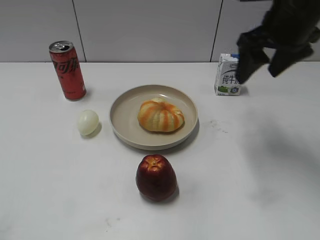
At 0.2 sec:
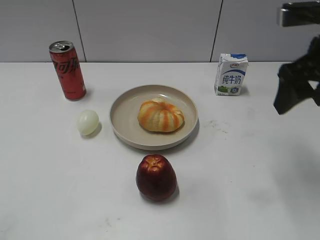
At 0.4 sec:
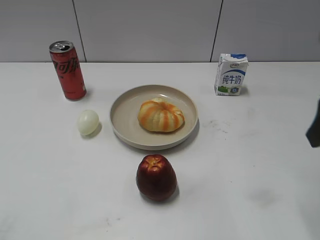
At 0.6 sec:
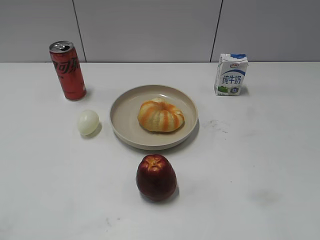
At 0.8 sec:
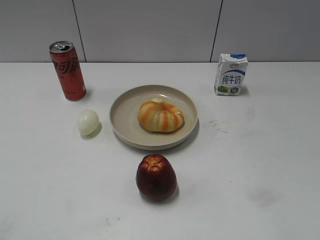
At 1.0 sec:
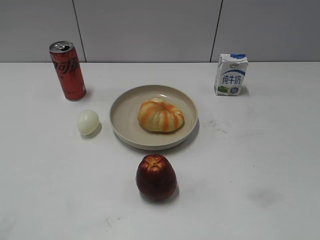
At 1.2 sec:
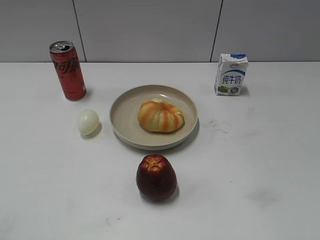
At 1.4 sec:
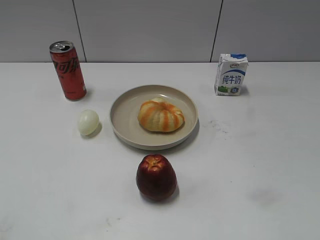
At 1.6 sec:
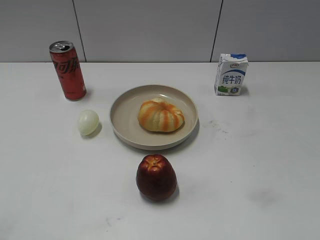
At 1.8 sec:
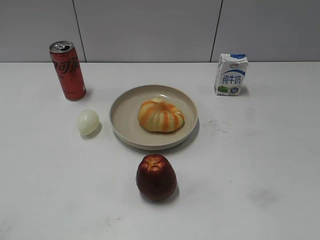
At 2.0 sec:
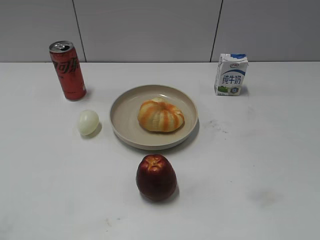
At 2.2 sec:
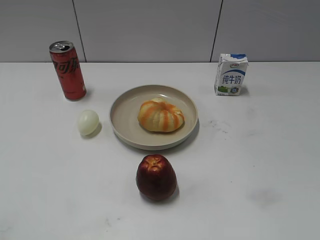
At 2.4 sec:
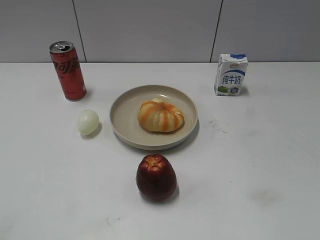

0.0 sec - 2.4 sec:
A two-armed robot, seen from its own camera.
0.0 sec - 1.2 sec: The right gripper travels backward by some 30 cm.

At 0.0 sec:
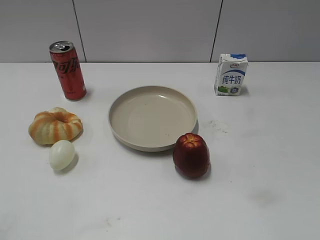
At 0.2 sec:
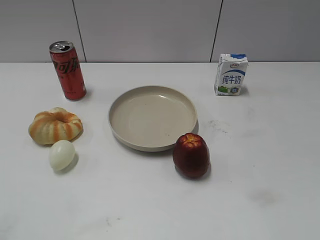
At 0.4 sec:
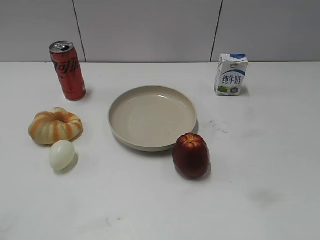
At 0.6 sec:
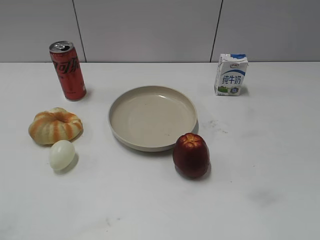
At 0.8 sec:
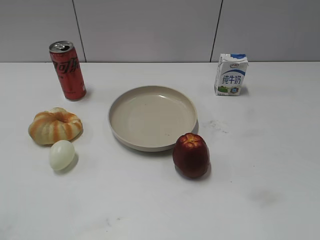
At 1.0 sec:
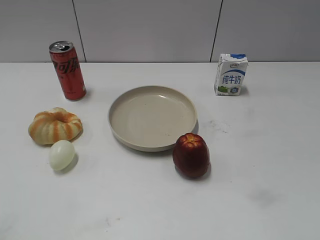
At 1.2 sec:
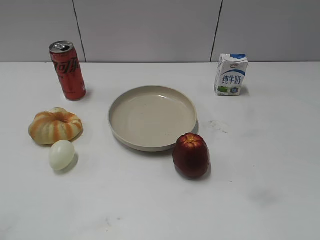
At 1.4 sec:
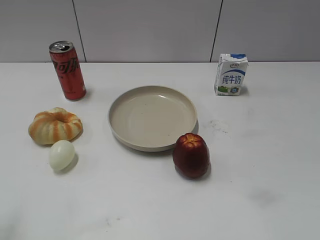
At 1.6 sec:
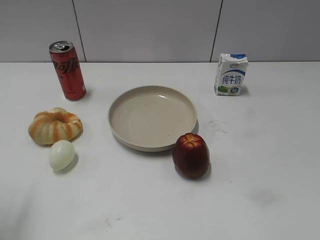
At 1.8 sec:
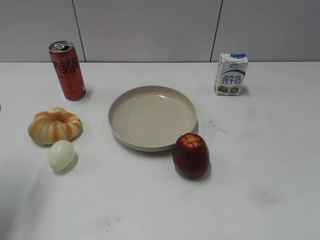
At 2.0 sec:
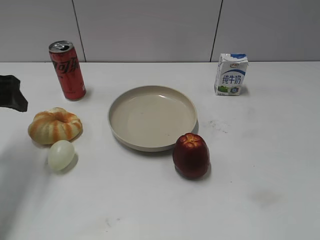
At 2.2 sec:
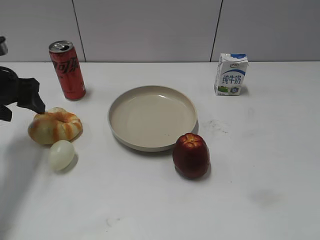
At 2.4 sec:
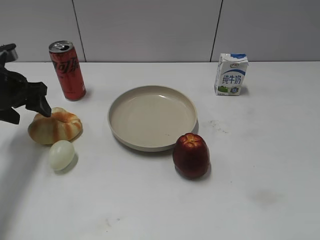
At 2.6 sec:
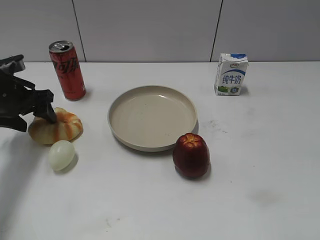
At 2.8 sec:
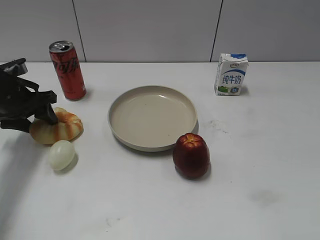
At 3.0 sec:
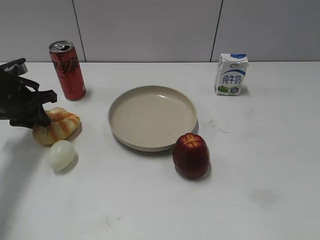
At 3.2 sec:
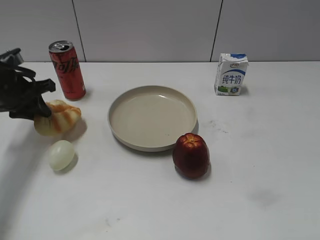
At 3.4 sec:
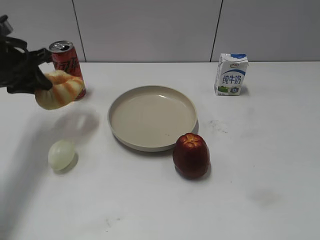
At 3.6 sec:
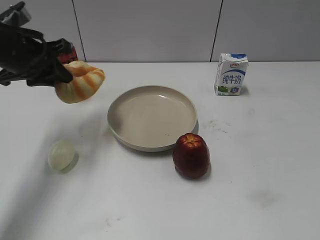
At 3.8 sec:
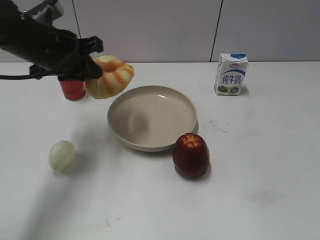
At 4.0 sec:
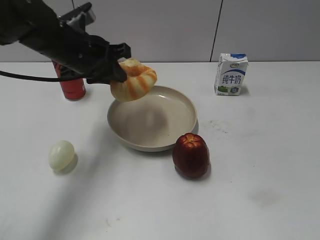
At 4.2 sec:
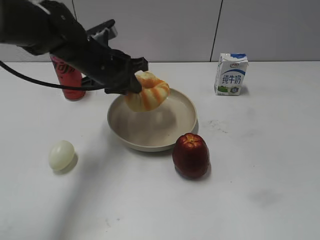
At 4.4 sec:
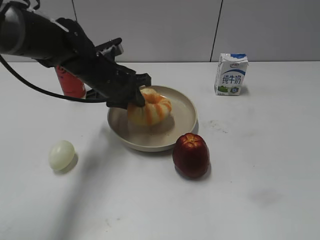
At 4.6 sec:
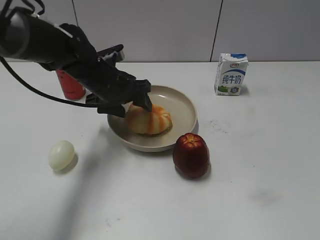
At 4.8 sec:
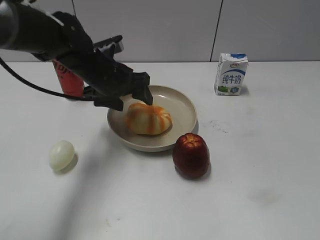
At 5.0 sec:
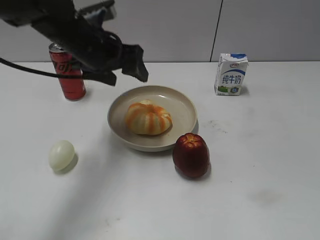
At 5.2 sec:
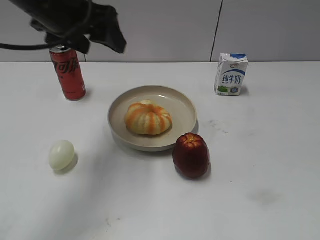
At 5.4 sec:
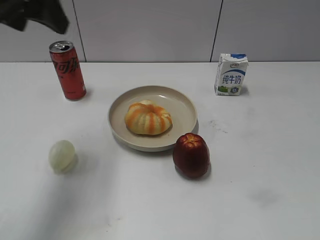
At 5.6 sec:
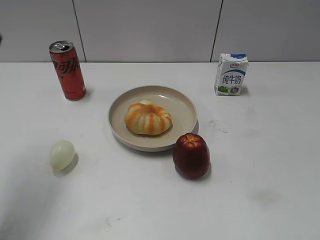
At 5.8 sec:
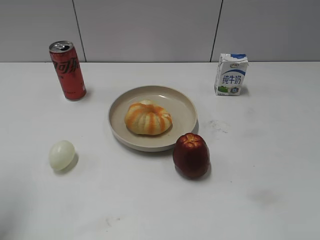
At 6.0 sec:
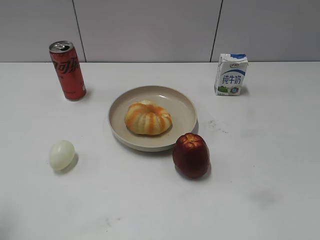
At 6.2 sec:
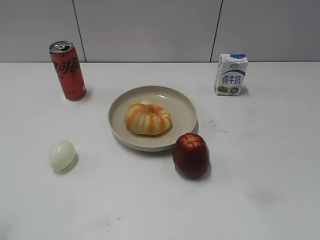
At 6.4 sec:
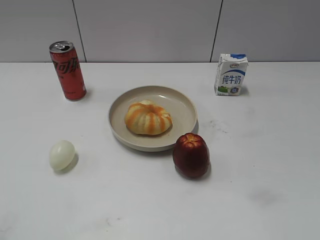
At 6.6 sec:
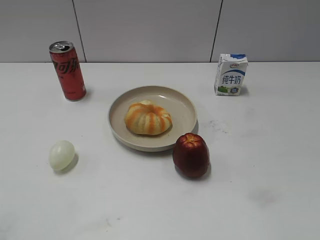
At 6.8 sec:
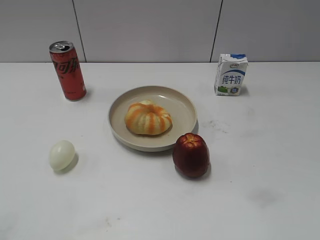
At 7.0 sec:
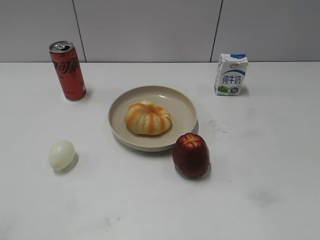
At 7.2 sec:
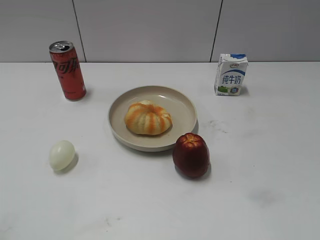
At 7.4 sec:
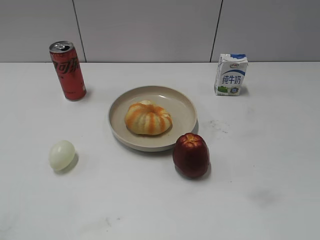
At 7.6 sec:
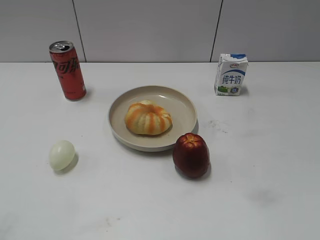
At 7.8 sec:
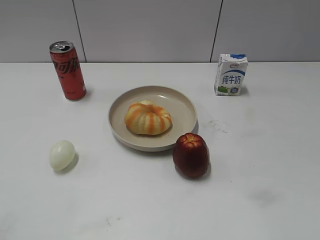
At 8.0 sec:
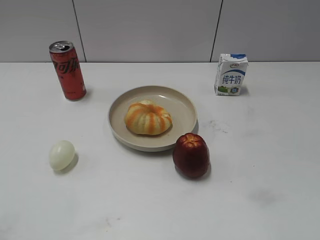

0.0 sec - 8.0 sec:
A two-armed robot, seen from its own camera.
Step, 1.0 sec - 3.0 sec: Grasp the round bread with left gripper.
Step, 3.2 sec - 4.8 sec: Place the round bread on the plate with left gripper.
1.6 sec - 3.2 sec: The left gripper is displaced forward and downward by some 25 cm, and closes.
3.2 sec - 4.8 sec: The left gripper is displaced to the right by about 15 cm, and opens.
4.8 sec - 6.4 sec: The left gripper shifts approximately 40 cm backward, to the left and upward.

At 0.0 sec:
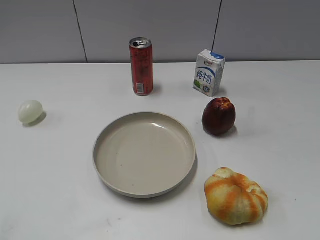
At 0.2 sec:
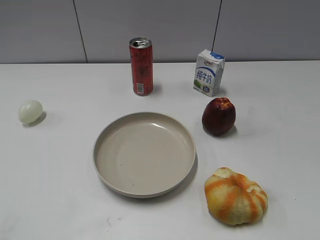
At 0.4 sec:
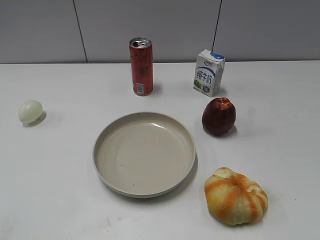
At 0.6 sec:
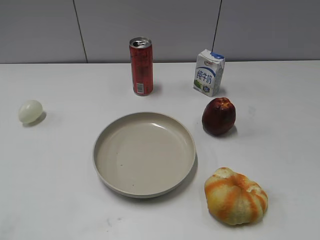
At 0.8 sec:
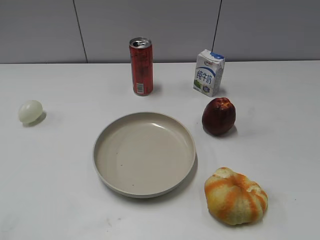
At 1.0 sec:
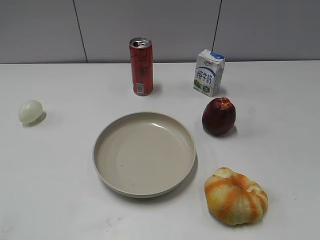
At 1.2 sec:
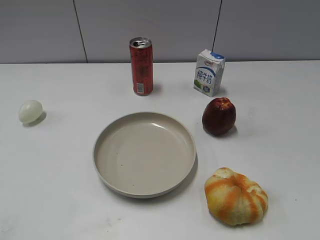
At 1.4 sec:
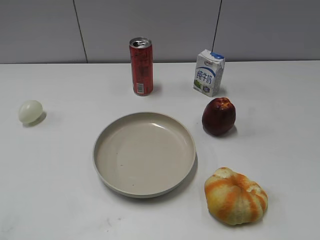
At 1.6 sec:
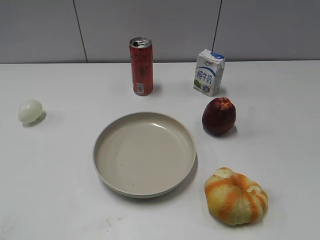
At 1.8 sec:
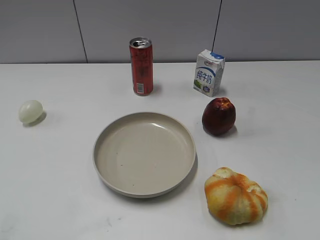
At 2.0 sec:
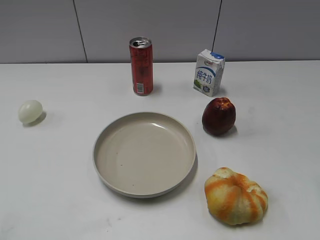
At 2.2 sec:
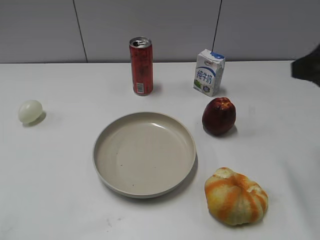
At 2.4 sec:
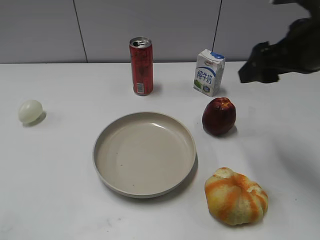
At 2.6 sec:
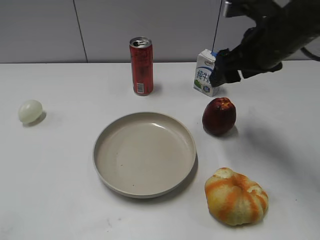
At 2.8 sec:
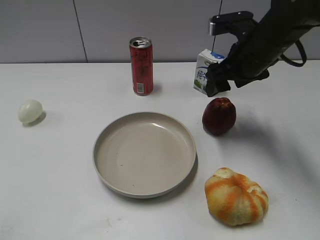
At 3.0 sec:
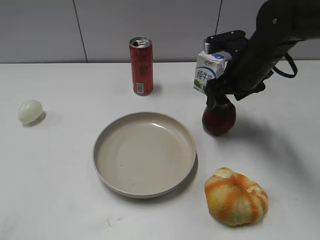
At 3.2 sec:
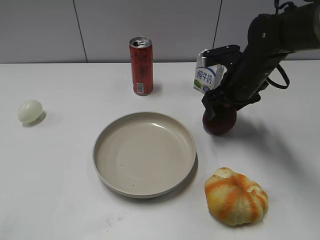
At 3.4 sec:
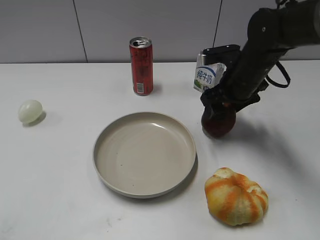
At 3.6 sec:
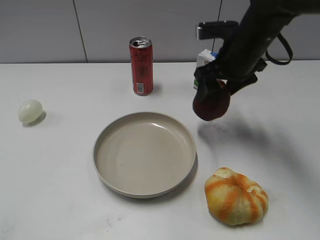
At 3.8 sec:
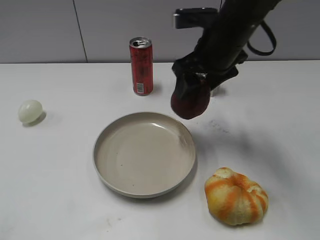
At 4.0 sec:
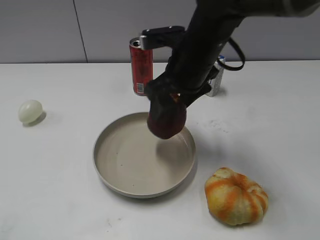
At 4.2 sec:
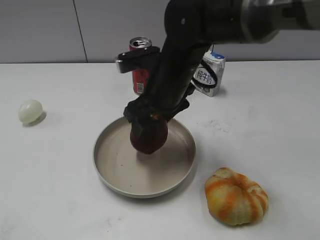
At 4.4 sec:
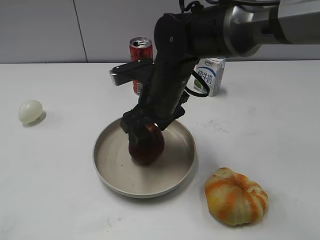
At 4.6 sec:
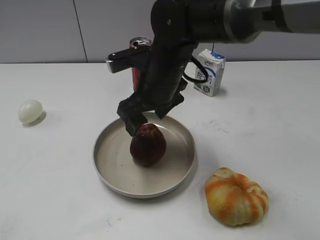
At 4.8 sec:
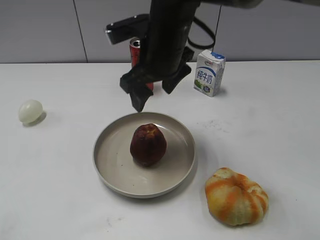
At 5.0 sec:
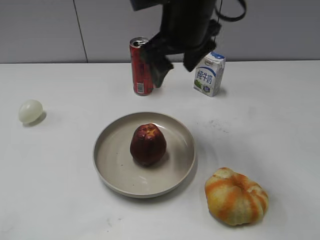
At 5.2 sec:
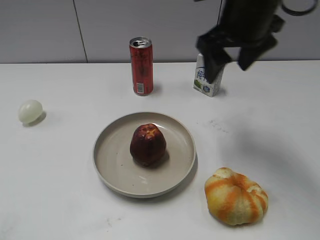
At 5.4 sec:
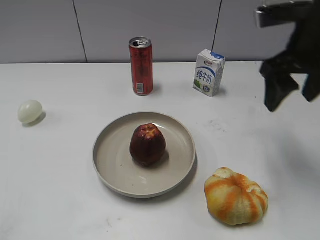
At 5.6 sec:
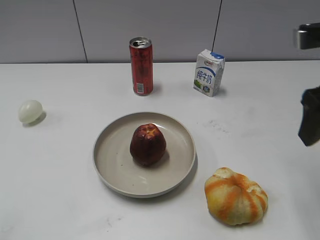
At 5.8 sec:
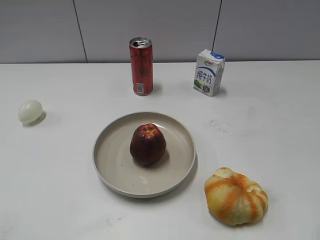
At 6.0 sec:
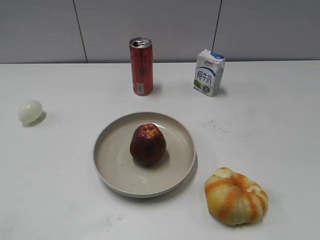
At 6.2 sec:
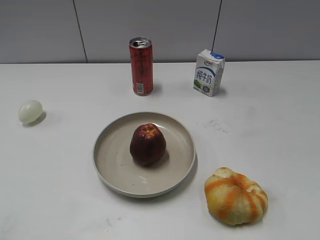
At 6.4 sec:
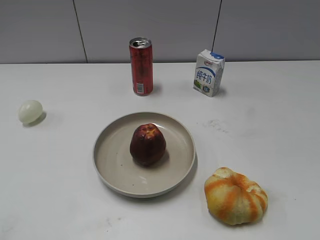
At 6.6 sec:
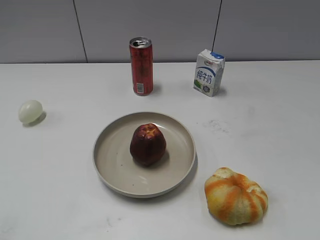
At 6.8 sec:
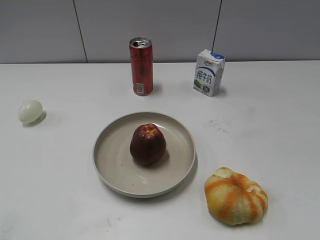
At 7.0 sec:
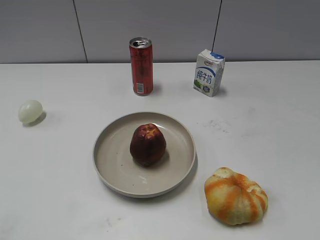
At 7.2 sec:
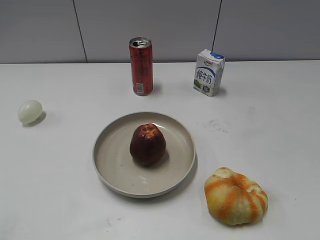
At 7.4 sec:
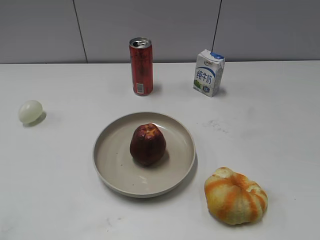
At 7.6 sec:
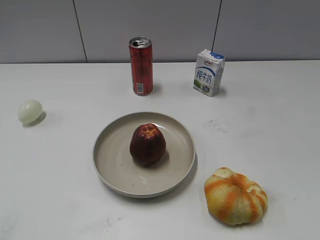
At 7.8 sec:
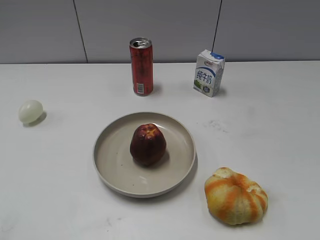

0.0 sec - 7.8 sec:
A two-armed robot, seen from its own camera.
Step, 1.4 sec - 3.2 sec: Grasp the apple with right gripper.
Step, 3.4 sec - 4.6 sec: Place the apple on the plate with right gripper.
1.6 sec - 3.2 sec: The right gripper goes approximately 40 cm forward and downward.
3.2 sec - 4.6 sec: The right gripper travels to the left by about 15 cm.
4.6 sec - 6.2 sec: The right gripper goes about 40 cm to the right, backward and upward.
